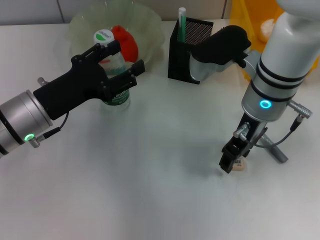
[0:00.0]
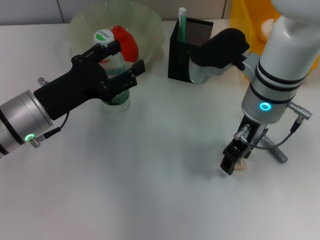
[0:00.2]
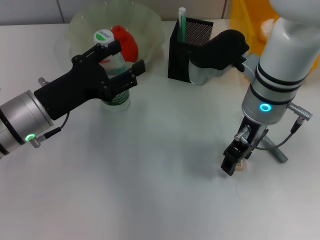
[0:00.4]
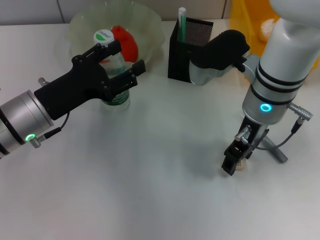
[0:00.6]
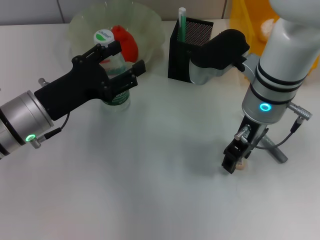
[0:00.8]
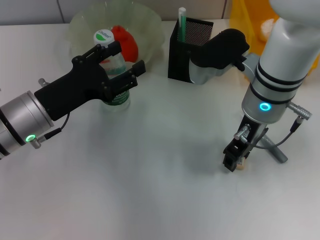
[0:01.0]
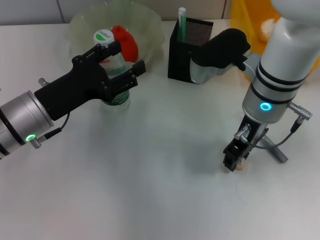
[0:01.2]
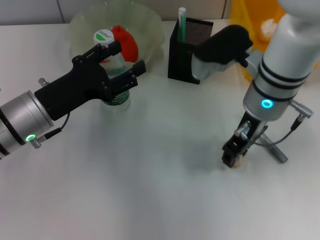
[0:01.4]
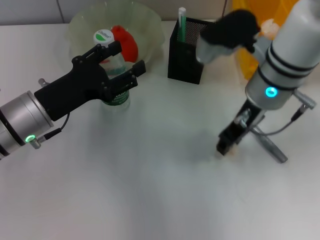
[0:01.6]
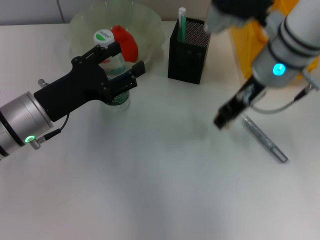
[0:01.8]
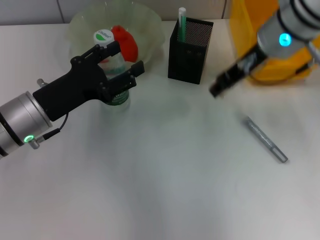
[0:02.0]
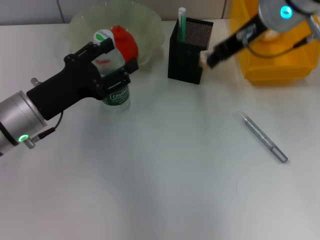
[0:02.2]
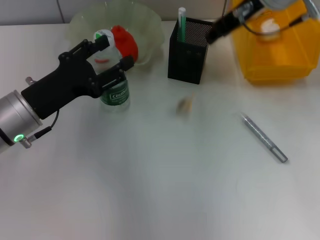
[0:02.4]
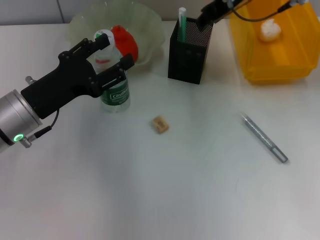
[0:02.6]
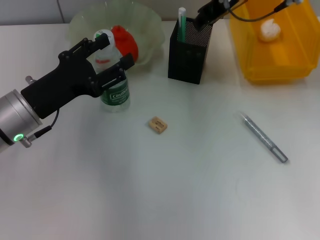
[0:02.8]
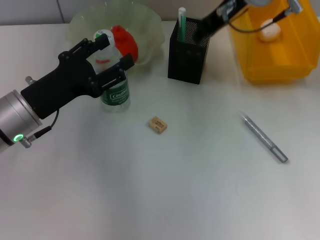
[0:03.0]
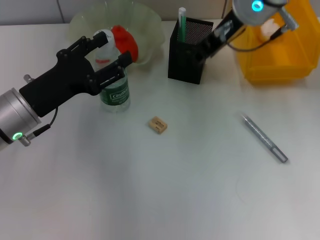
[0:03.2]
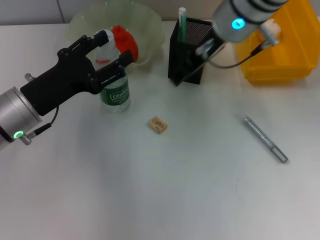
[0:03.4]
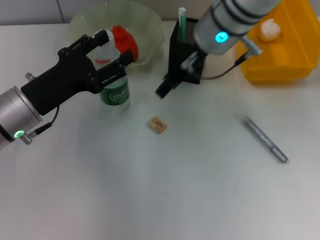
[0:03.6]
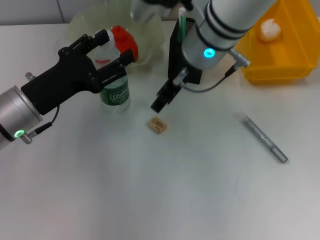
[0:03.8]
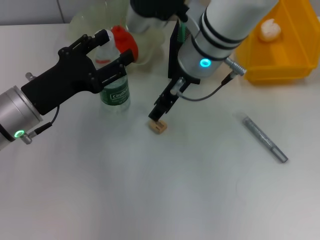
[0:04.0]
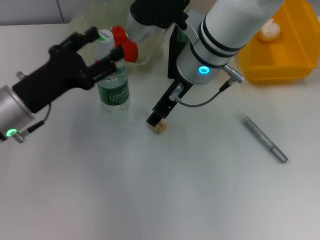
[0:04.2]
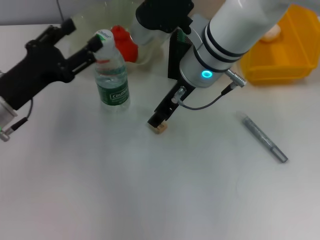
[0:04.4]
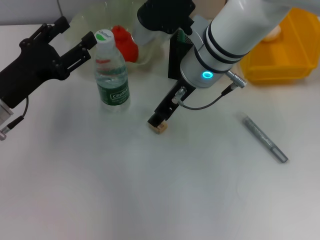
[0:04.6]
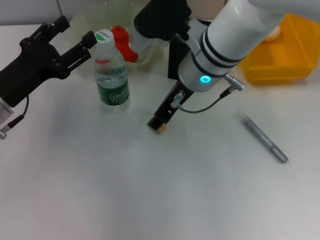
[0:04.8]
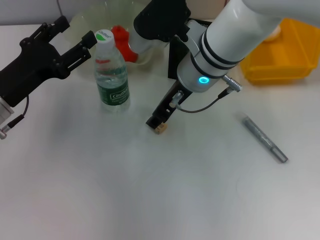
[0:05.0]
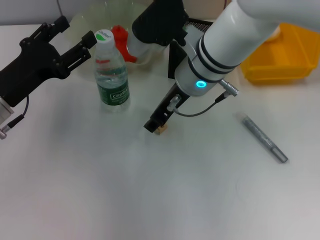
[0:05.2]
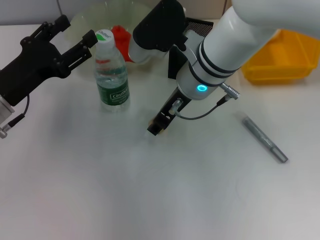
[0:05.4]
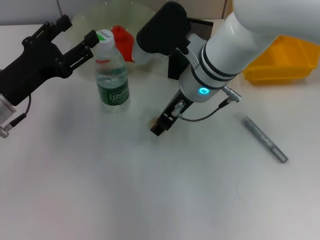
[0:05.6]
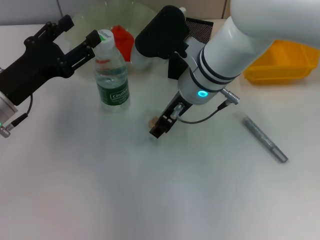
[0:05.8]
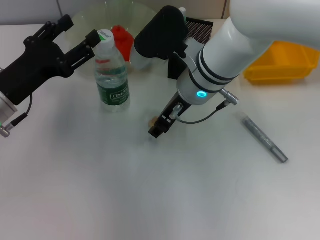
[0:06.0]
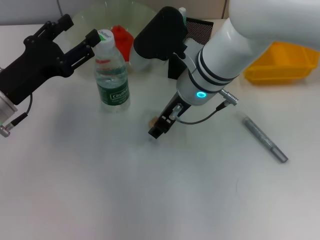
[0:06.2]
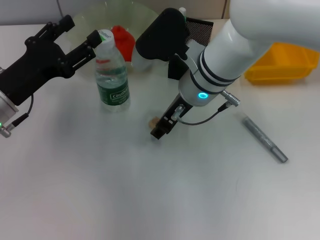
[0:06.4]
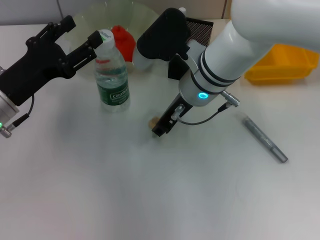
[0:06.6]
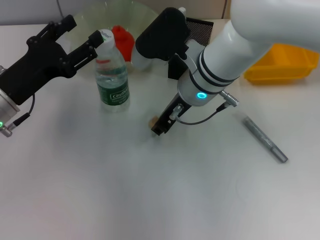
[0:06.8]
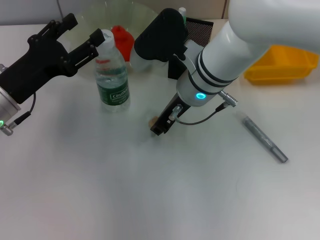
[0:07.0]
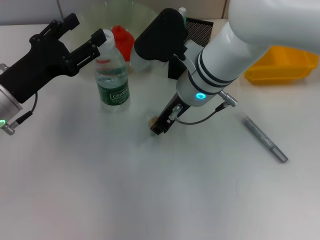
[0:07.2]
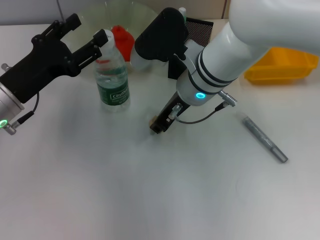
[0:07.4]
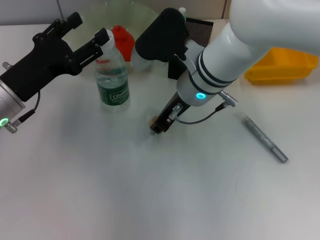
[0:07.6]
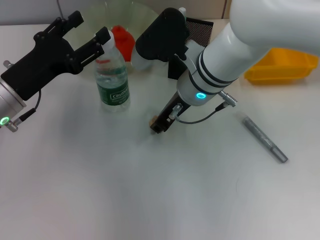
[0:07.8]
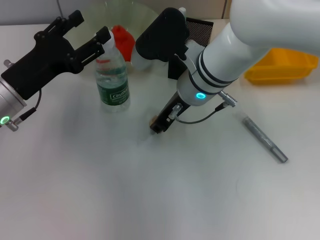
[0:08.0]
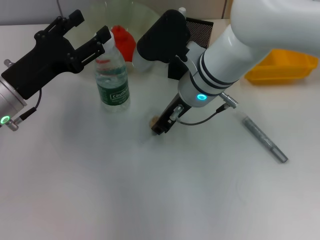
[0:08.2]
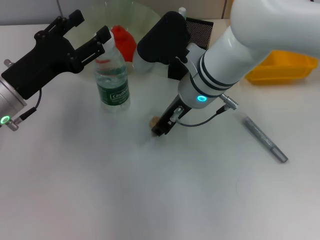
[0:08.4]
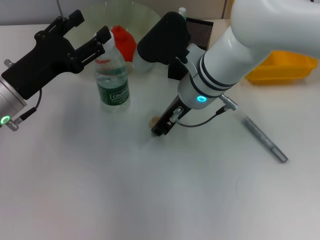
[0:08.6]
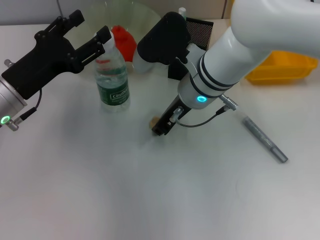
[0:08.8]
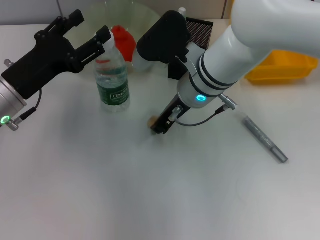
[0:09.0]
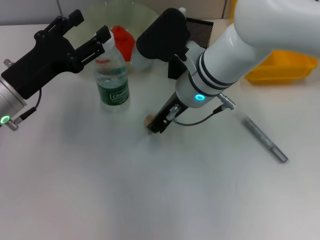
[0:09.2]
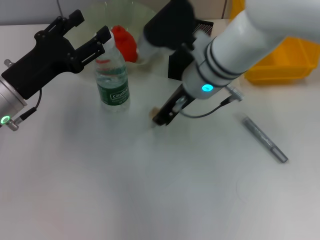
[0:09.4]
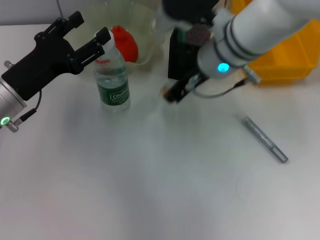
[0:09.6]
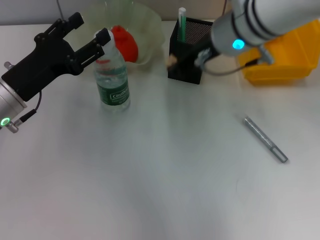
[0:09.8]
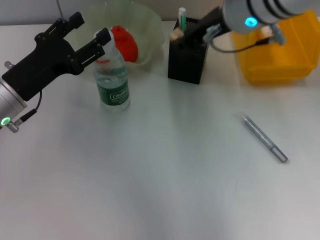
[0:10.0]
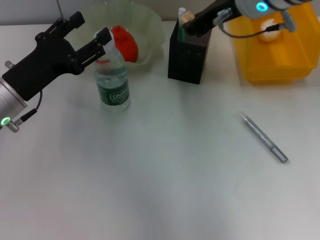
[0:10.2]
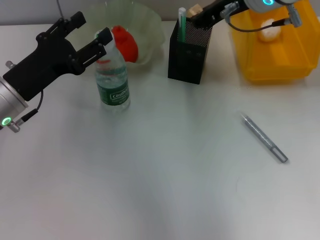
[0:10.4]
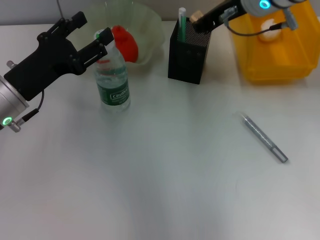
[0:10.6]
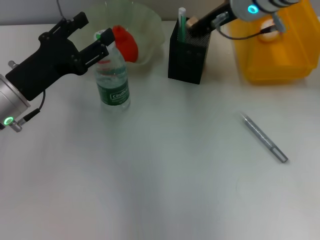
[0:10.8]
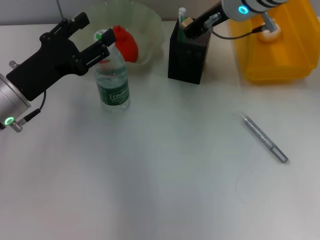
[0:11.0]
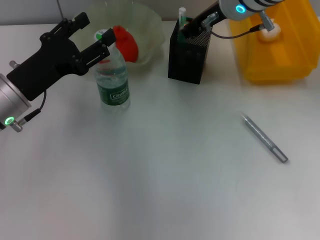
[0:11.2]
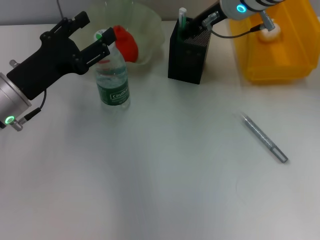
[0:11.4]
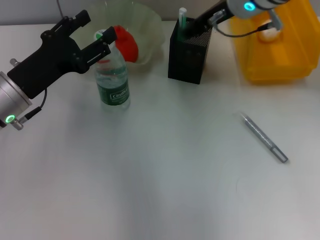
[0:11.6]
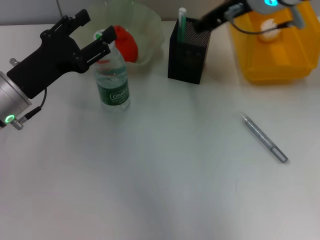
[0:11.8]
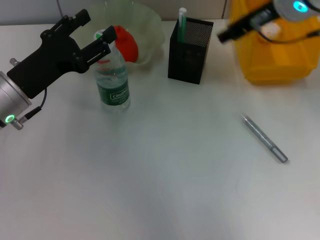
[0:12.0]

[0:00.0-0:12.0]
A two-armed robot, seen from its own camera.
Step, 0:00.0 to 0:08.8: Grab the eraser with the right hand.
Step, 0:09.2 to 0:11.6: Put the eraser into the pen holder with the right hand.
0:00.0 to 0:01.6: There are only small adjustments of the grippers.
0:01.6 to 0:03.0: The right gripper goes approximately 10 cm upward and forward.
0:03.0 to 0:04.4: The right gripper heads downward and to the left, covering approximately 10 cm.
0:04.4 to 0:06.0: The grippers stay close to where they were, moving slightly.
0:06.0 to 0:09.0: Neither gripper changes place.
0:09.0 to 0:10.4: The right gripper travels upward and to the right by approximately 15 cm.
0:10.4 to 0:12.0: The right gripper opens.

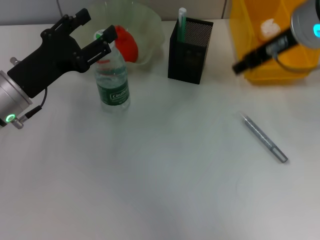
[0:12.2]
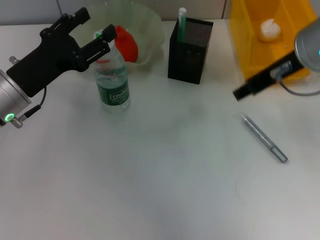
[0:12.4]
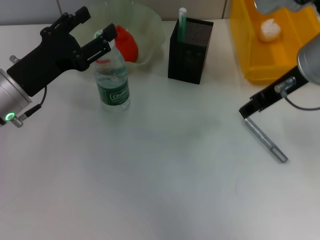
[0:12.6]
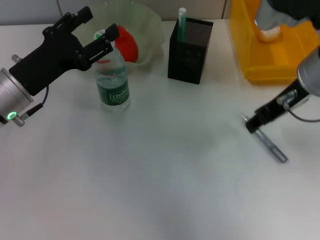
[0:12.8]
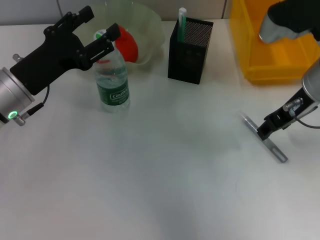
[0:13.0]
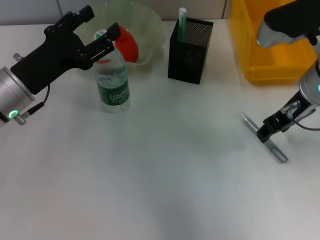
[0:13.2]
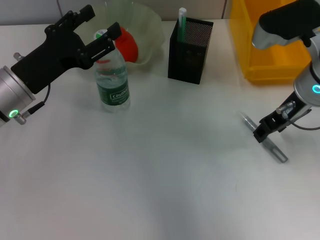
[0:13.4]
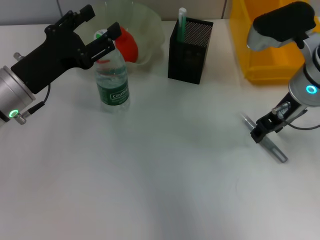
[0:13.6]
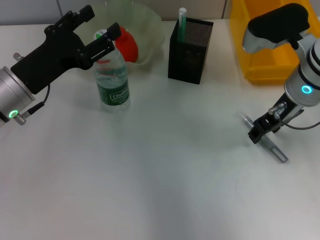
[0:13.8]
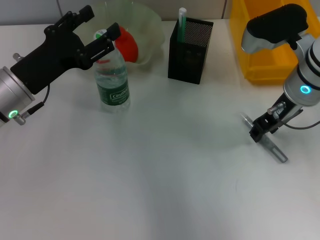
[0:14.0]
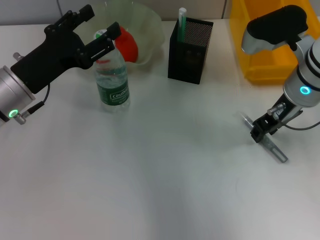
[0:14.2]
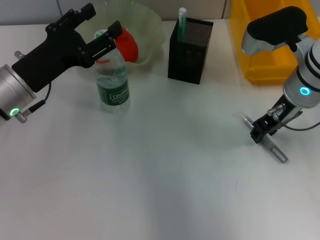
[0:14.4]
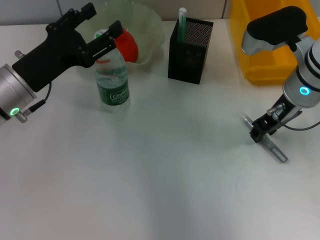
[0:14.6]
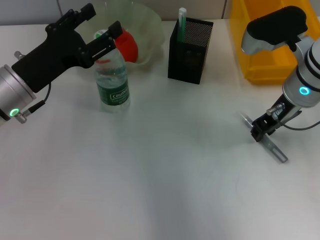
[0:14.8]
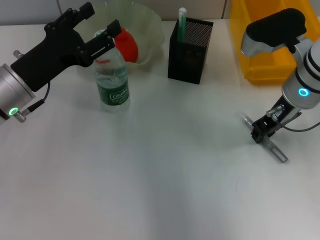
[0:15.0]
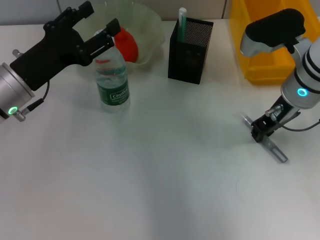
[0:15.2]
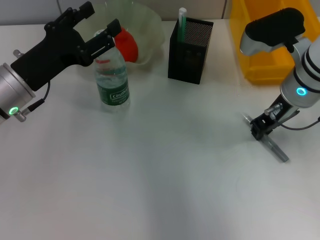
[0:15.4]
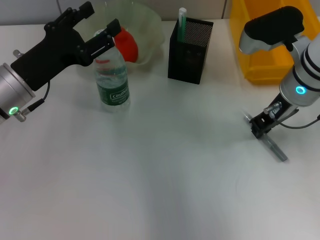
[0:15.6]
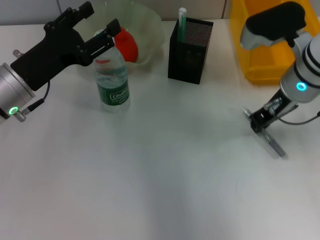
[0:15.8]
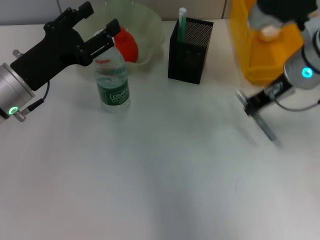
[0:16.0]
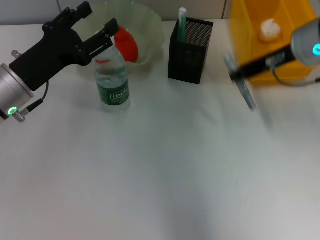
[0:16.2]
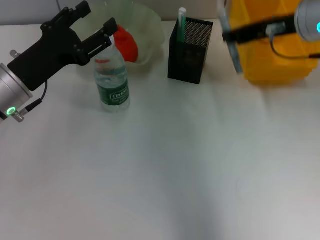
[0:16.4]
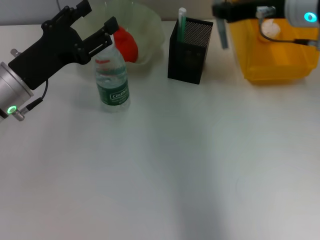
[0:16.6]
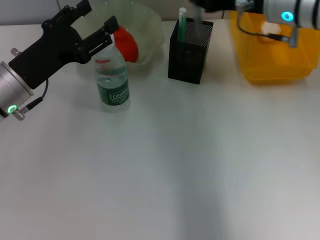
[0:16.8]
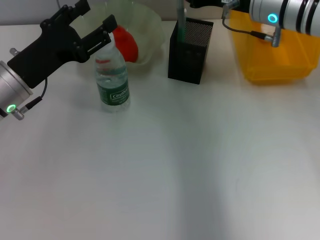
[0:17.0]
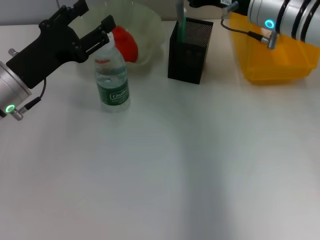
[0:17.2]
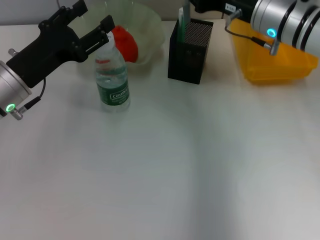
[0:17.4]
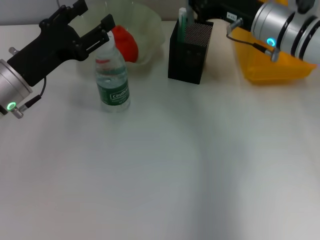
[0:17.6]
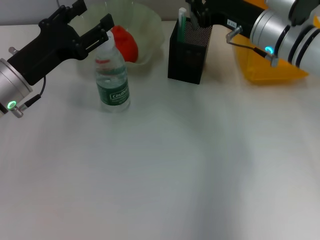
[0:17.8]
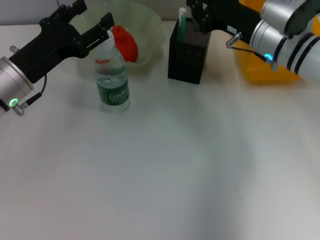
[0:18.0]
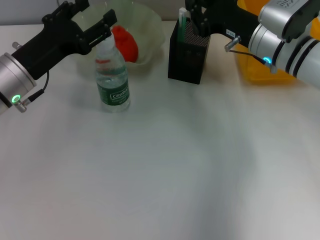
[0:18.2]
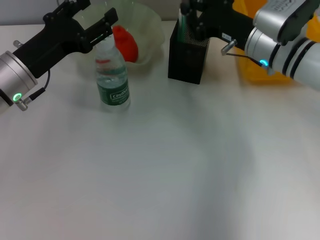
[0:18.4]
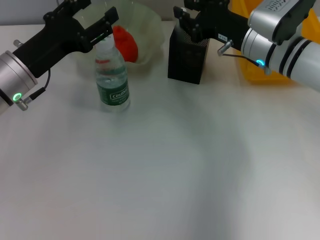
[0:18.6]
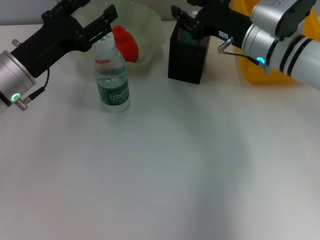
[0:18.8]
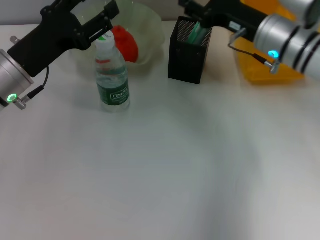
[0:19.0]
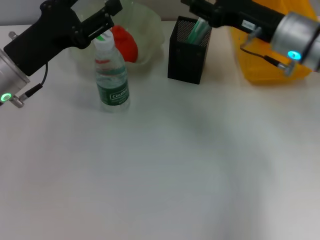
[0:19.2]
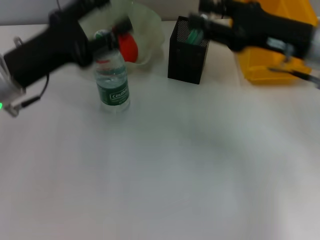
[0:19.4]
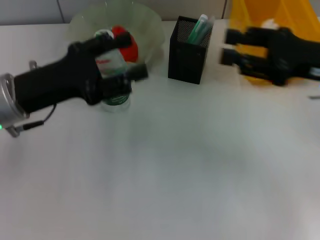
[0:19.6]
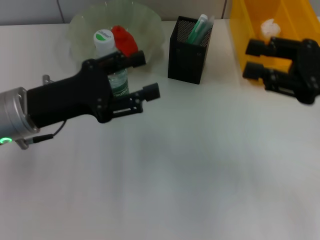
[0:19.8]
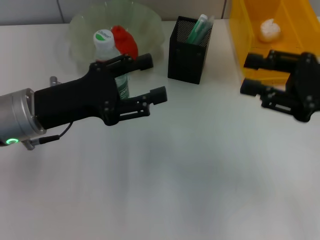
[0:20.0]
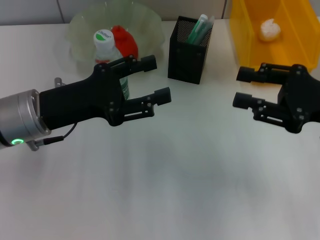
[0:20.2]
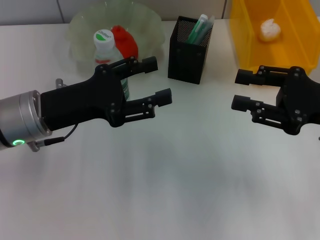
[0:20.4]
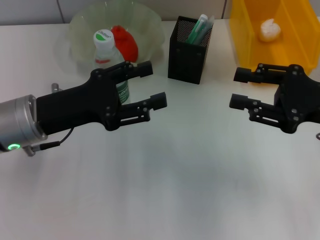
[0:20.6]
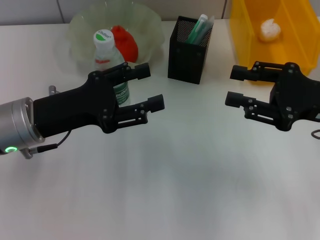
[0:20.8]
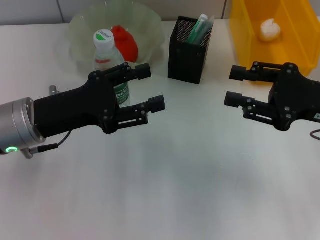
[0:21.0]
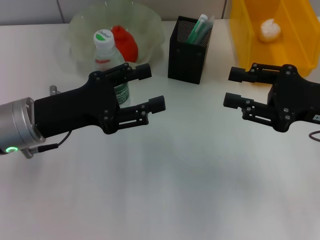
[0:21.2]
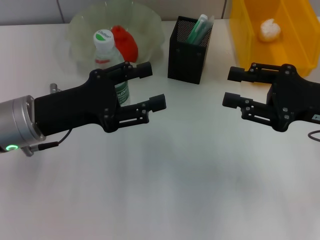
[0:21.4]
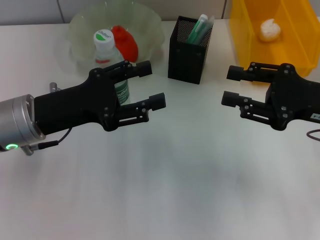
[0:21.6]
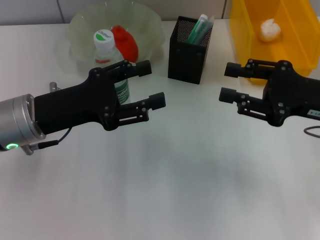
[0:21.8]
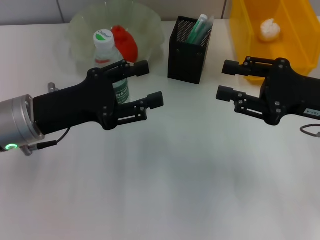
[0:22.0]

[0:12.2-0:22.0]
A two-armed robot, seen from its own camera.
Step, 0:12.2 to 0:15.4: Grab the gray glue with the right hand.
Step, 0:15.8 to 0:19.0: Place the gray glue into the pen holder with the right hand.
0:12.2 to 0:13.6: The right gripper heads downward, covering about 10 cm.
0:13.6 to 0:15.0: The grippers stay close to where they were, moving slightly.
0:15.0 to 0:16.4: The right gripper travels upward by about 5 cm.
0:16.4 to 0:17.8: The right gripper shifts roughly 10 cm downward.
0:17.8 to 0:19.2: The right gripper opens.
0:19.2 to 0:20.6: The right gripper travels backward and to the right by about 15 cm.
0:20.6 to 0:22.0: The grippers move only a little.
